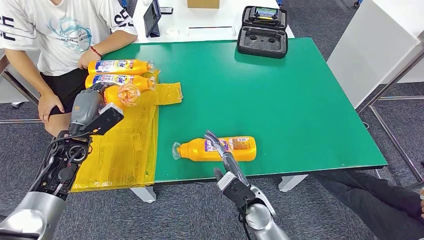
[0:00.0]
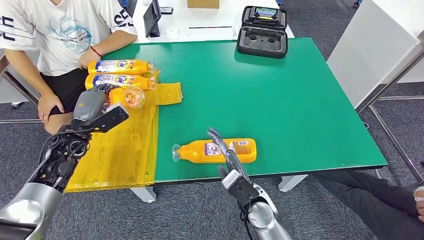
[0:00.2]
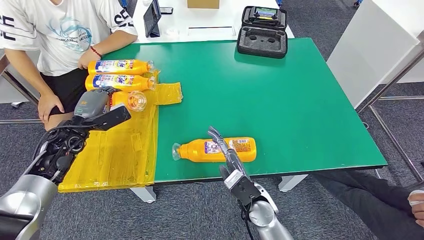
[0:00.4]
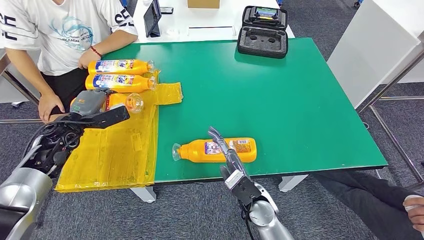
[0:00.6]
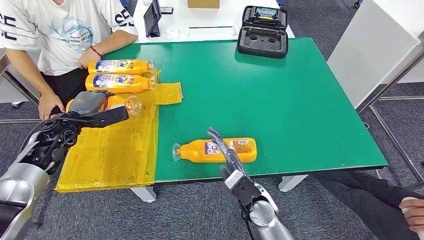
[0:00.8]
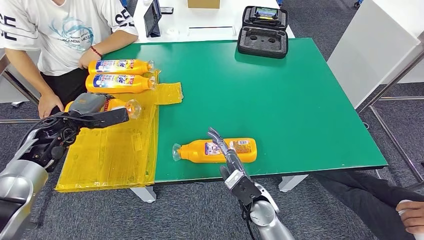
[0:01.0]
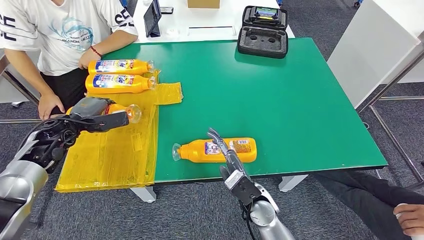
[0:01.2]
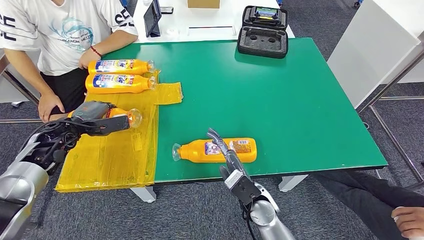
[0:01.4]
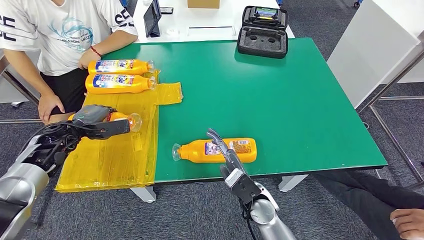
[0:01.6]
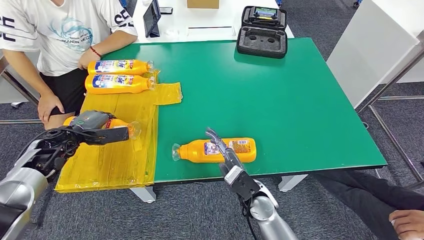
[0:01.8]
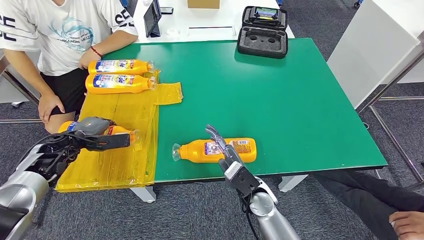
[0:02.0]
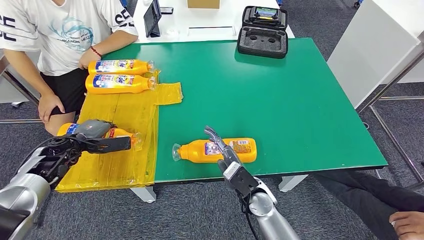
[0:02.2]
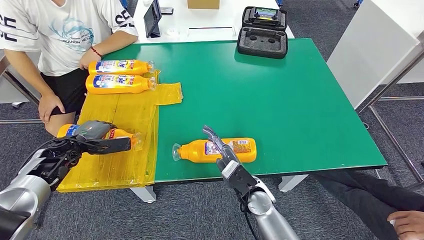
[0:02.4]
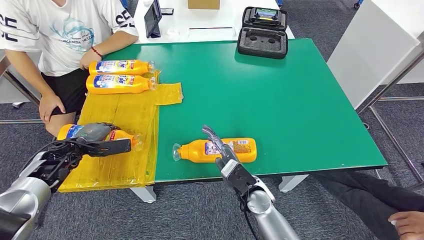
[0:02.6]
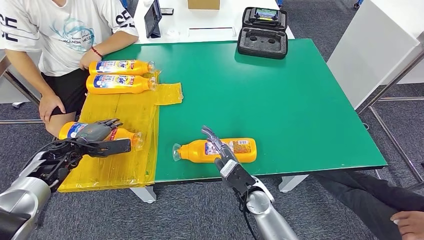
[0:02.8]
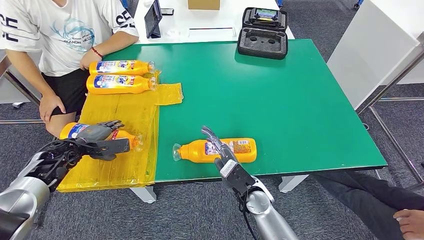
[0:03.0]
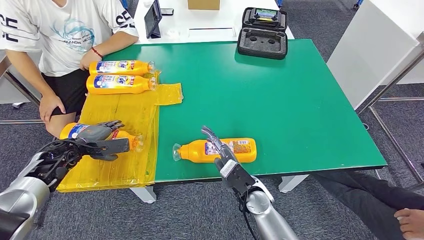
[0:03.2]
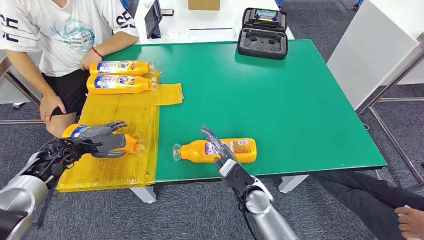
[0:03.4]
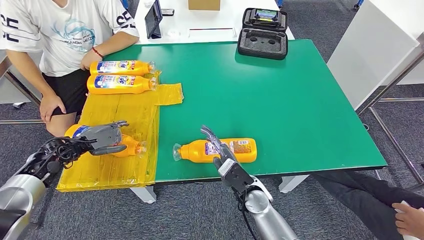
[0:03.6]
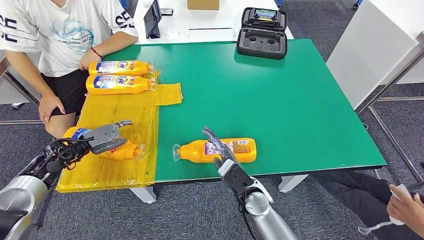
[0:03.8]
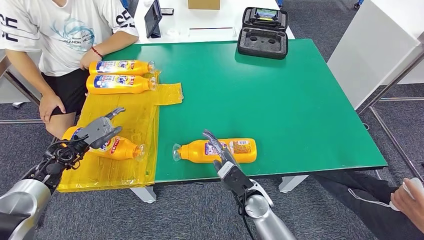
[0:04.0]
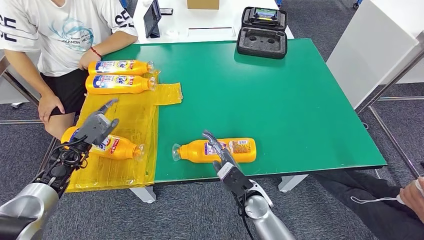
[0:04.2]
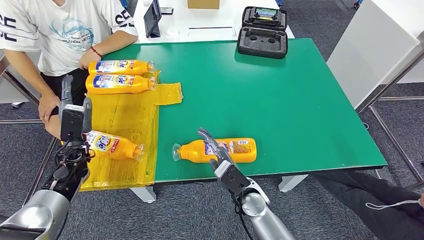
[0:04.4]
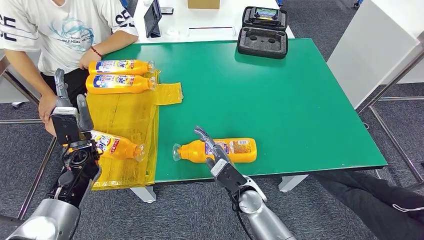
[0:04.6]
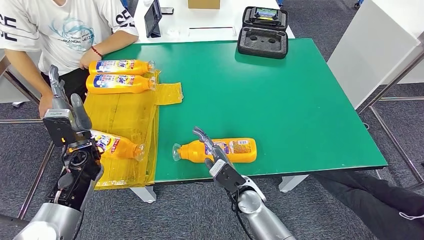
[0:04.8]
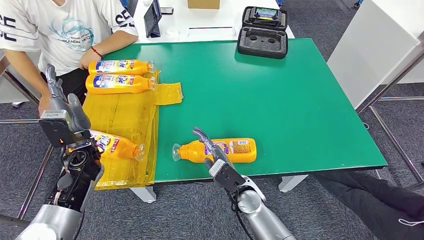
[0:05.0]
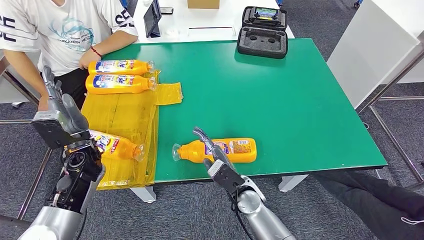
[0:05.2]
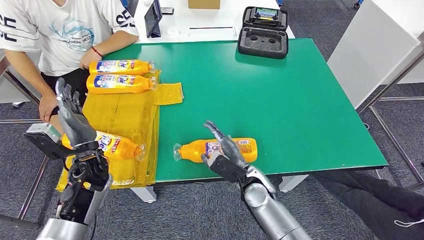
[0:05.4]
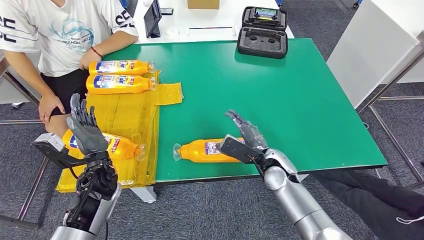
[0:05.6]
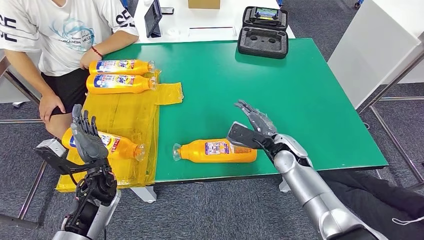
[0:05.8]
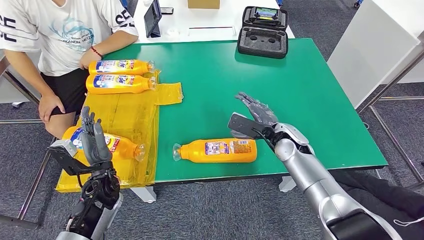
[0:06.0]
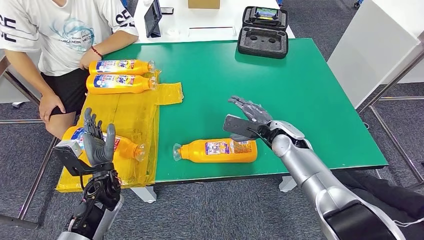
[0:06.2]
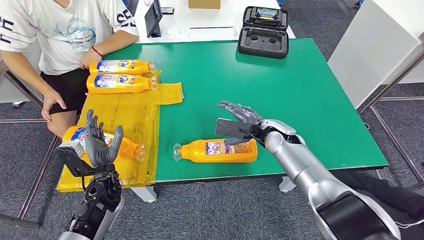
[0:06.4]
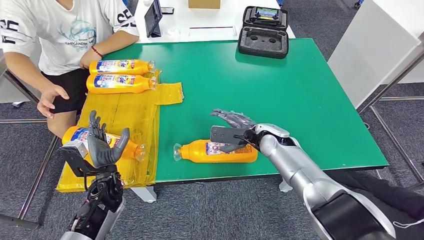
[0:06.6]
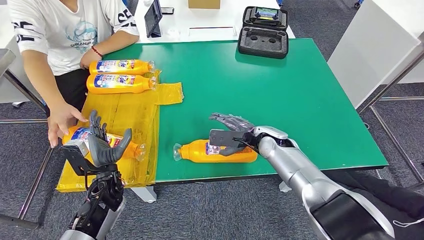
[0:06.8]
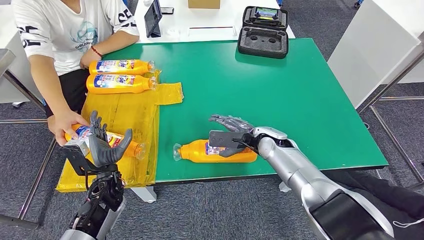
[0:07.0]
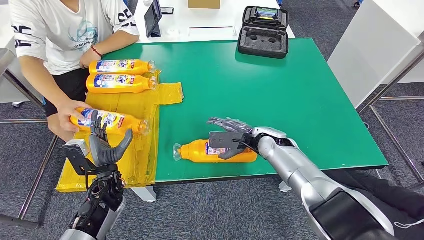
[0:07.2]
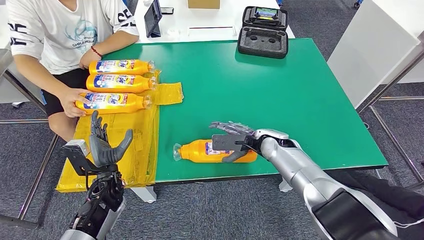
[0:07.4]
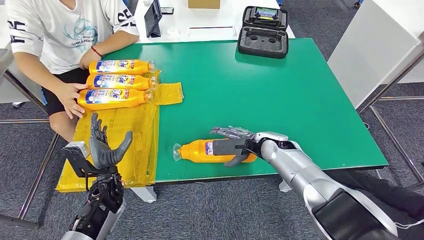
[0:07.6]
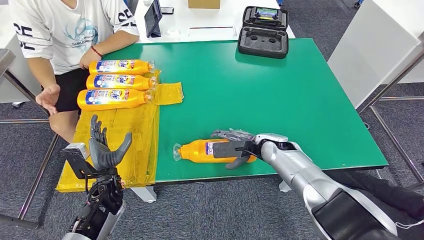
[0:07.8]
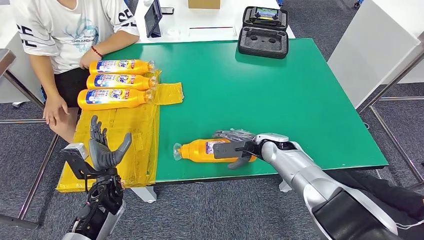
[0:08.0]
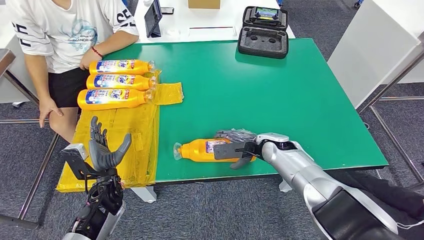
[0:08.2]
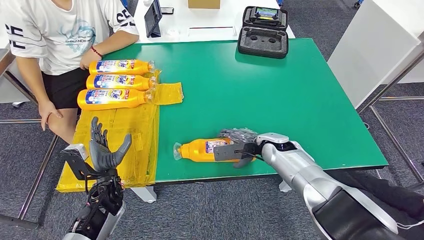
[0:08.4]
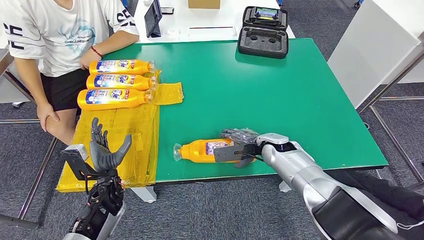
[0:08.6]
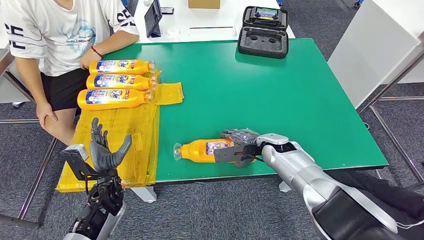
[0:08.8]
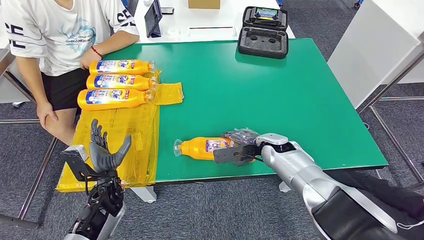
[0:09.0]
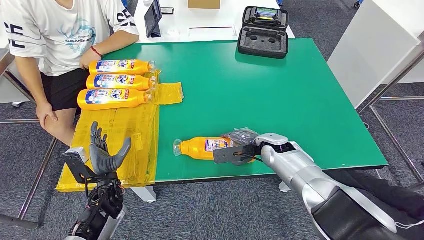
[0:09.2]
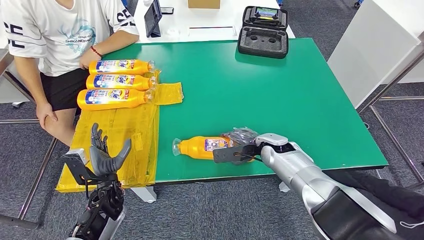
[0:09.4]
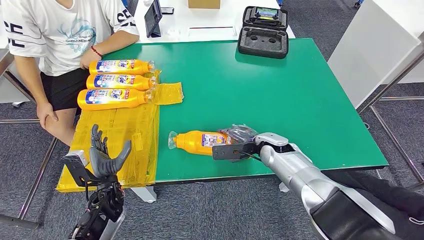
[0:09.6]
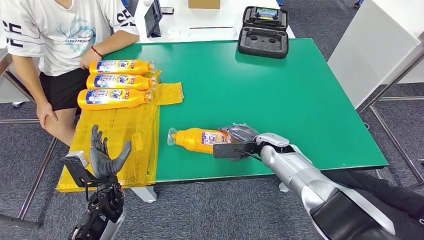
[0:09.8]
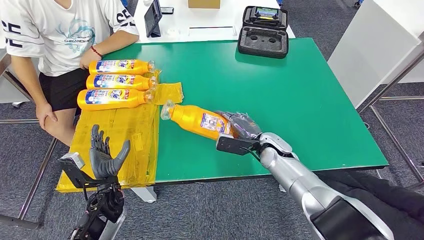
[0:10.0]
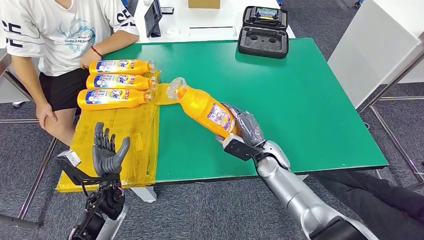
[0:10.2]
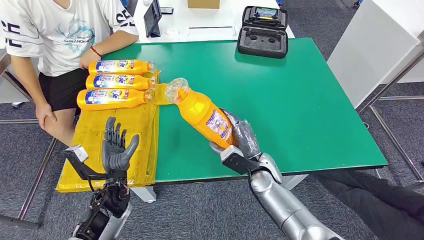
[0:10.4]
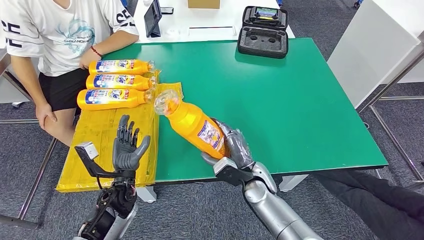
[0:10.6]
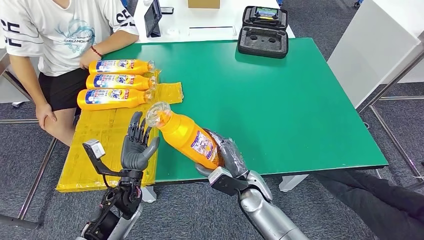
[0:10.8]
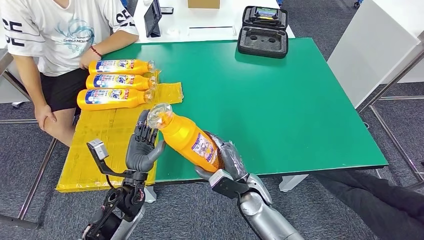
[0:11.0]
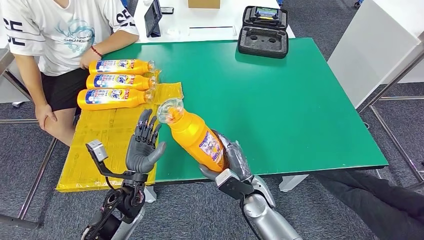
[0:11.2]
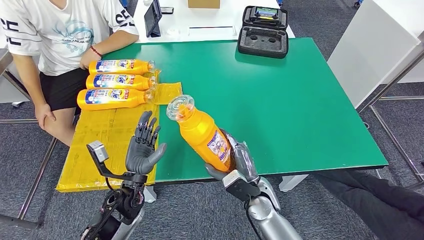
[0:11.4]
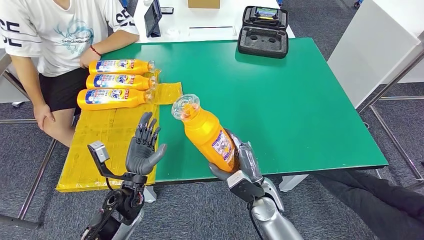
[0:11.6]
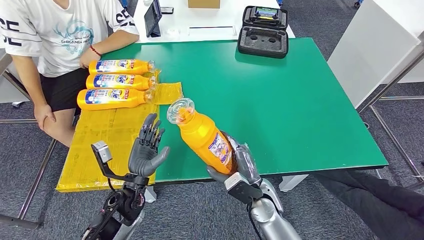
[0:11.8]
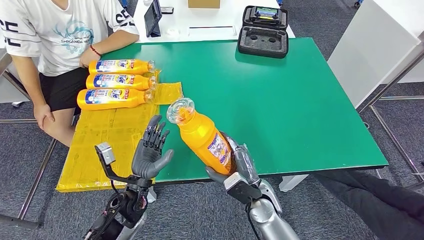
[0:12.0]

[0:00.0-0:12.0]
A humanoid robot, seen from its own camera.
Step, 0:00.0 to 0:03.0: Flip the fast-moving consumer goods bottle to the front side.
Step, 0:03.8 to 0:10.4: Pick up the fast-moving consumer goods bottle from the table.
0:00.0 to 0:01.6: The left hand shifts by approximately 5 cm.
0:01.6 to 0:03.0: The left hand heads downward, covering roughly 5 cm.
0:04.4 to 0:06.0: The left hand travels to the right and backward by about 10 cm; the right hand shifts some 20 cm forward, to the right and upward.
0:07.6 to 0:09.0: The hands stay close to where they were, moving slightly.
0:09.0 to 0:10.4: The right hand travels backward by approximately 5 cm.
0:10.4 to 0:12.0: The right hand travels backward by roughly 5 cm. Meanwhile the left hand is displaced to the right by approximately 5 cm.

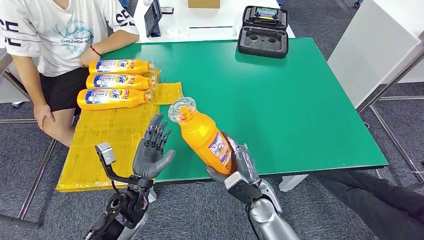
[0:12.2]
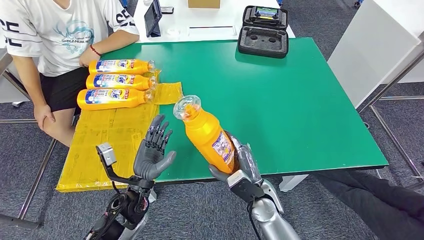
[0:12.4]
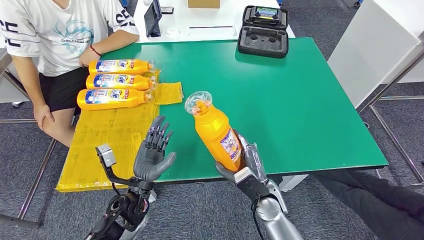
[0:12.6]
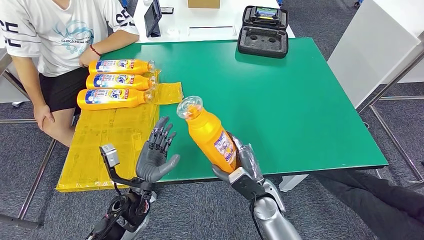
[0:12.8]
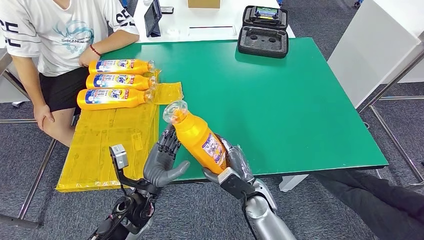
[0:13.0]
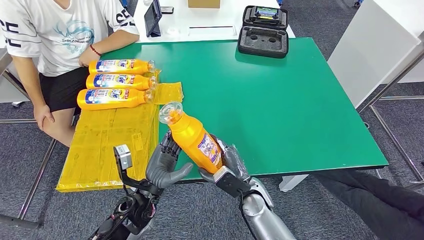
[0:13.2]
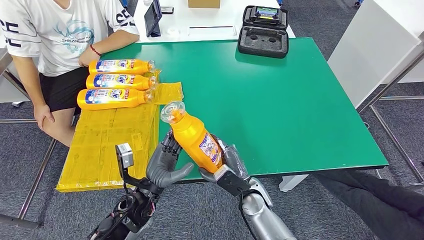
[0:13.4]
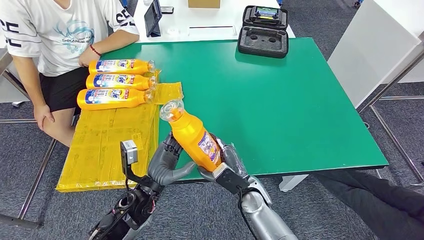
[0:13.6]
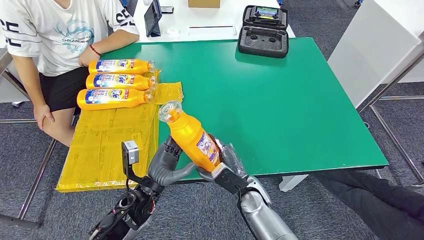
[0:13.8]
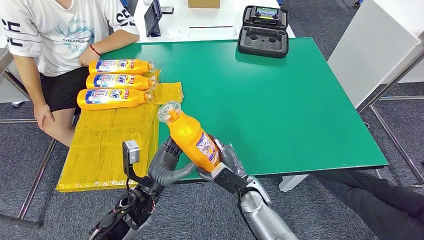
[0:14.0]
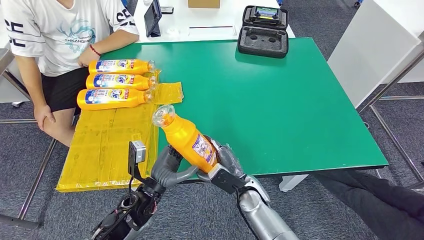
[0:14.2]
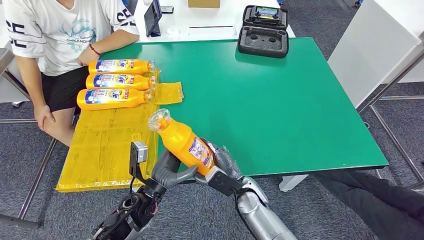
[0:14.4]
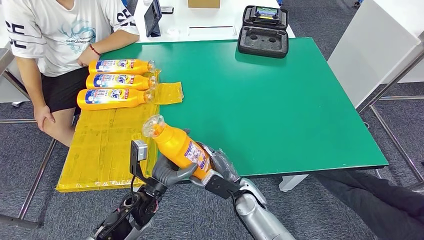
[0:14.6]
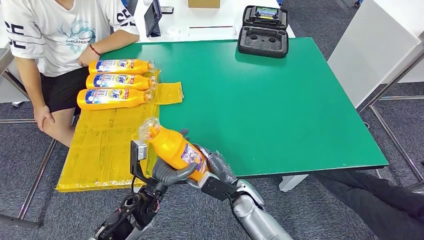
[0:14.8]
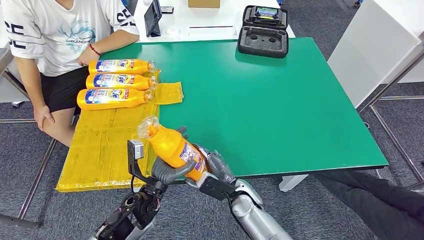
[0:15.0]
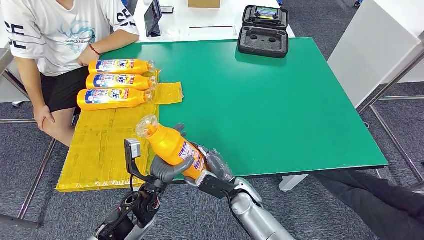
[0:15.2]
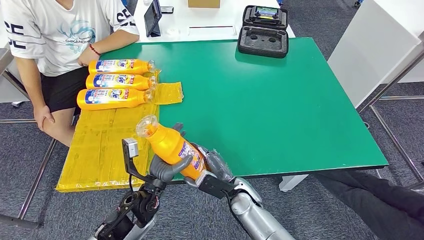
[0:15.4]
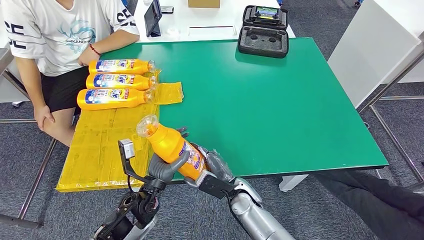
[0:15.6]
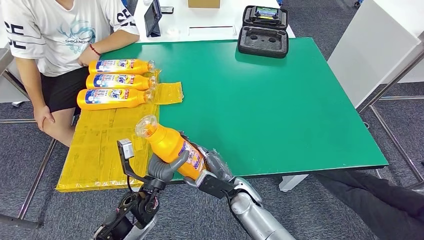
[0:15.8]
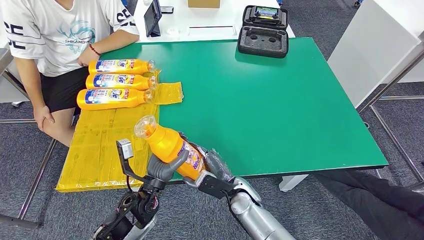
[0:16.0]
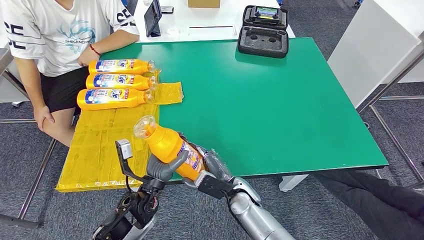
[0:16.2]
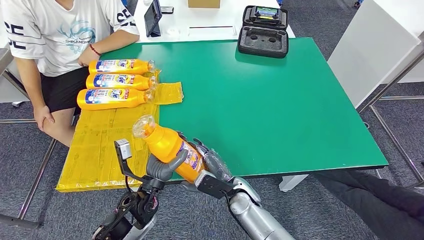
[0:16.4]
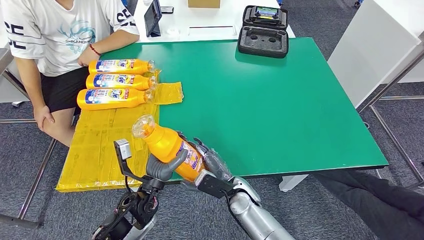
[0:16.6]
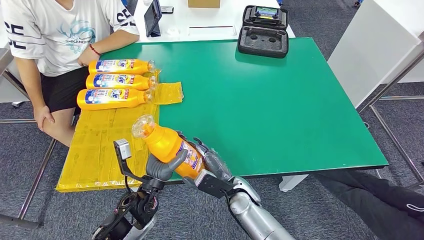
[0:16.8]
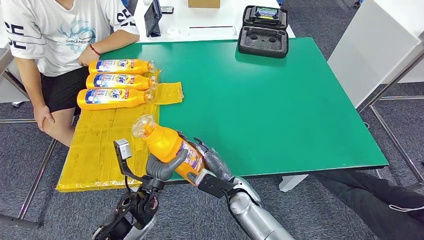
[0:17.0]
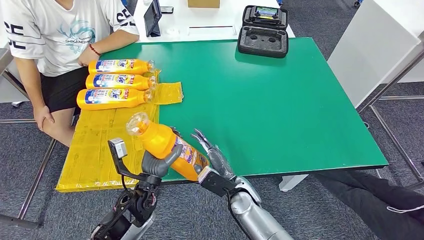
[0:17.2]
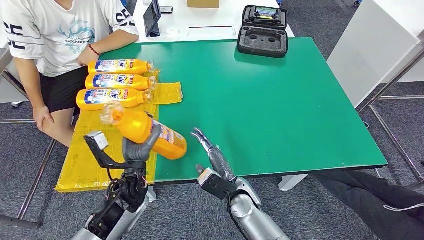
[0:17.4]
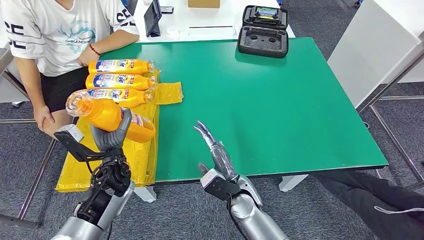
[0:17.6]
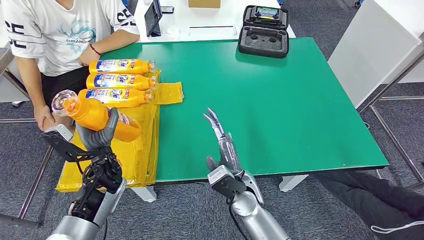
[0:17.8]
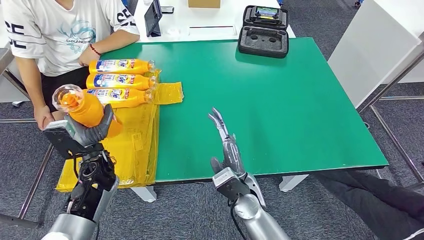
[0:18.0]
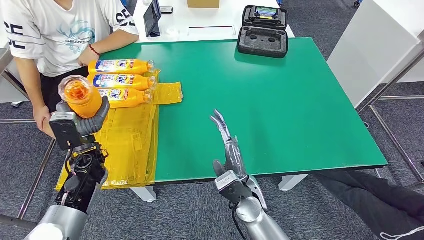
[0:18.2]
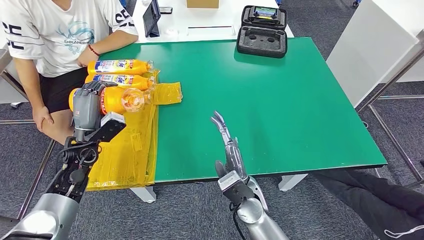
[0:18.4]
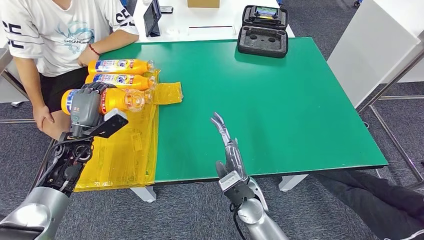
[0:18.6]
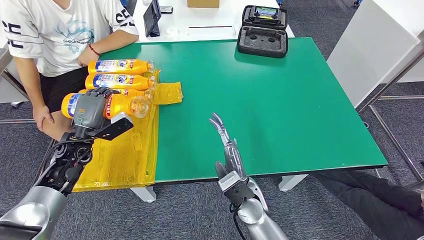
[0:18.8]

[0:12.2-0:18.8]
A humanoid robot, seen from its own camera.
0:12.2 to 0:13.8: The hands move only a little.
0:13.8 to 0:17.2: The hands make only small movements.
0:17.2 to 0:18.8: The right hand moves upward, roughly 5 cm. The left hand heads to the left and forward, covering some 25 cm.
